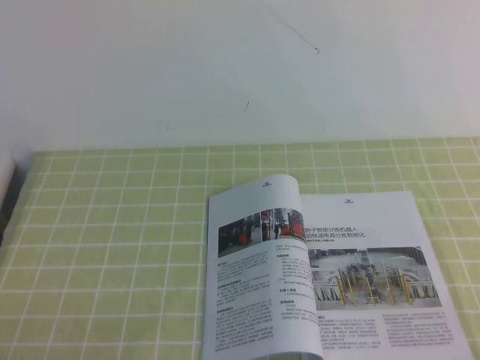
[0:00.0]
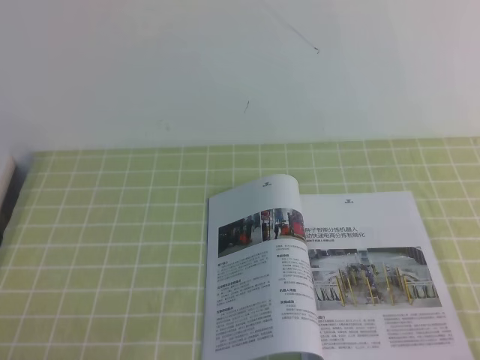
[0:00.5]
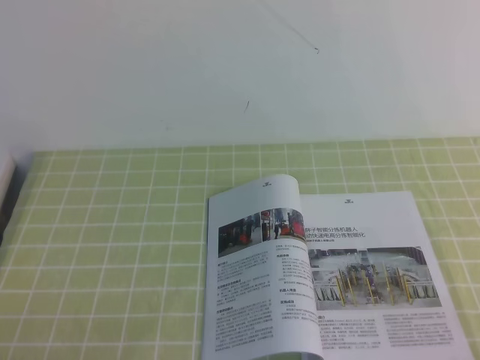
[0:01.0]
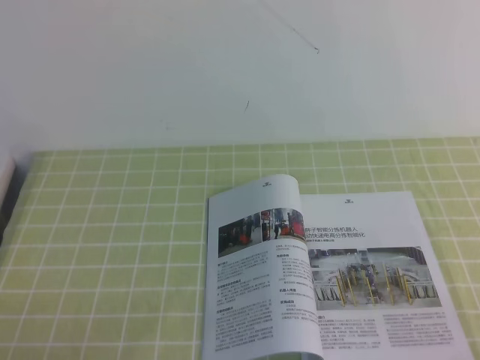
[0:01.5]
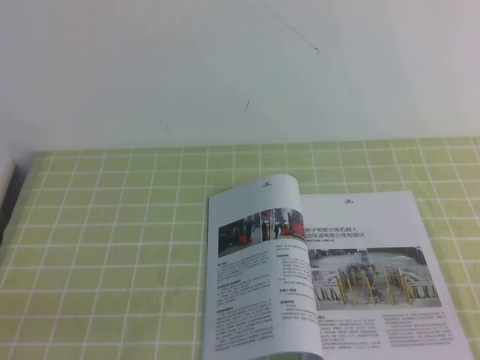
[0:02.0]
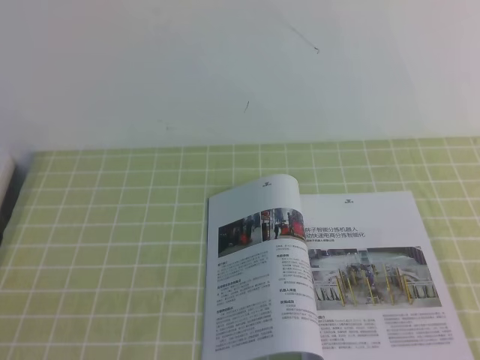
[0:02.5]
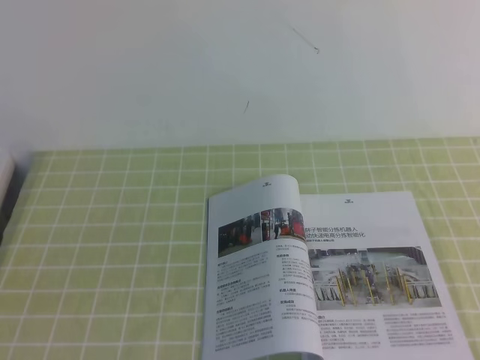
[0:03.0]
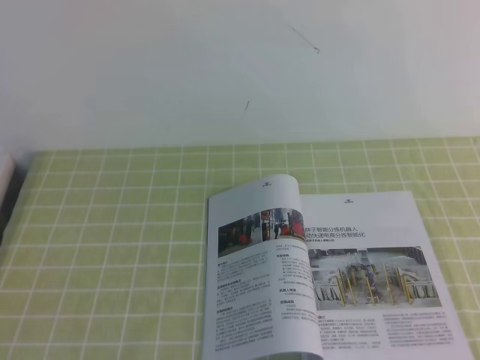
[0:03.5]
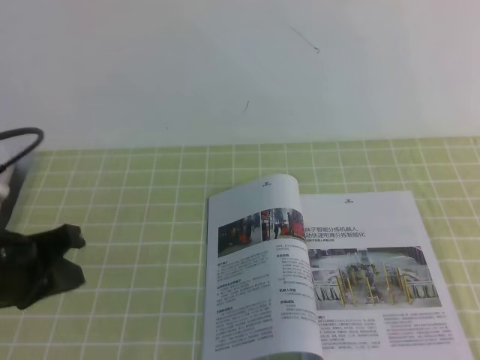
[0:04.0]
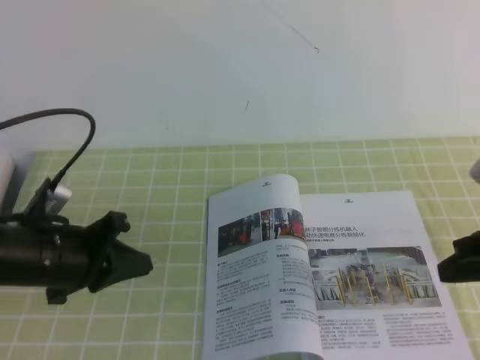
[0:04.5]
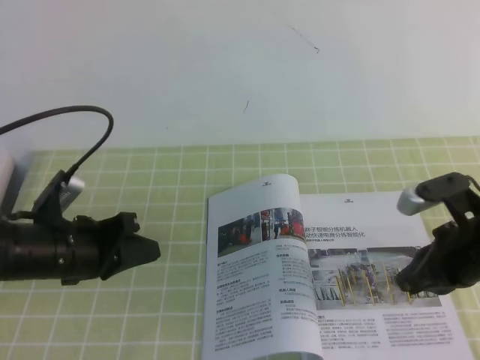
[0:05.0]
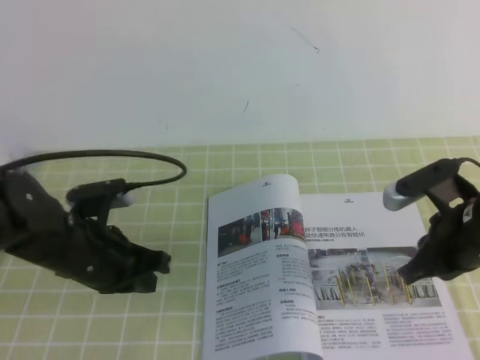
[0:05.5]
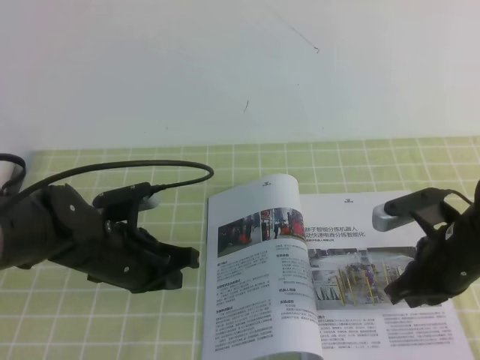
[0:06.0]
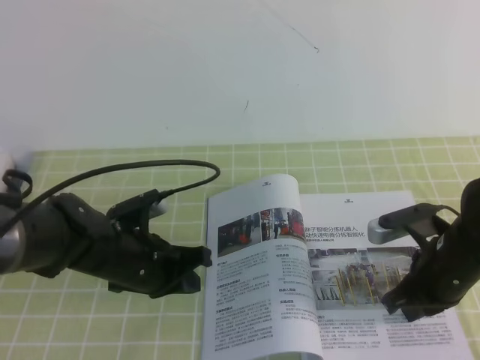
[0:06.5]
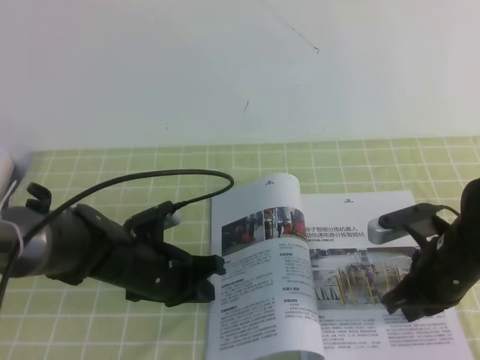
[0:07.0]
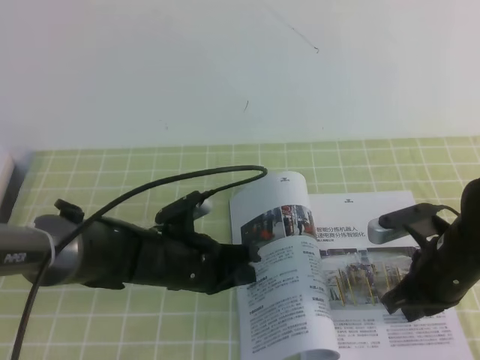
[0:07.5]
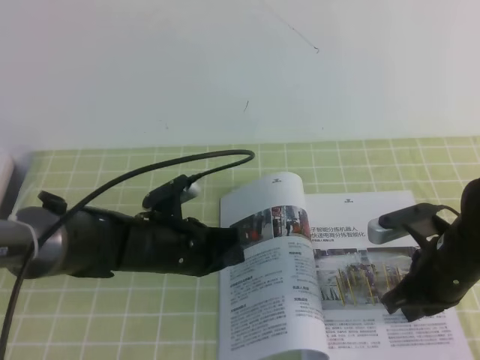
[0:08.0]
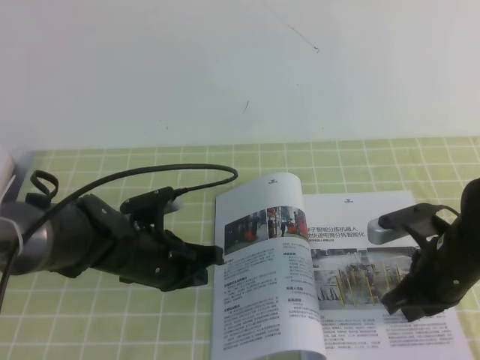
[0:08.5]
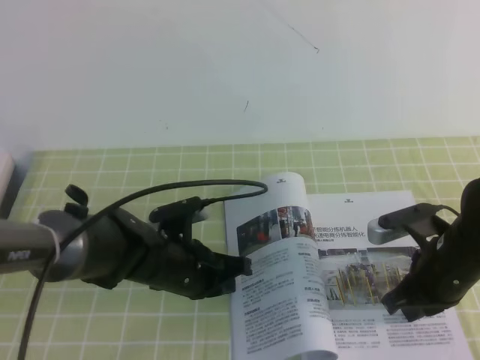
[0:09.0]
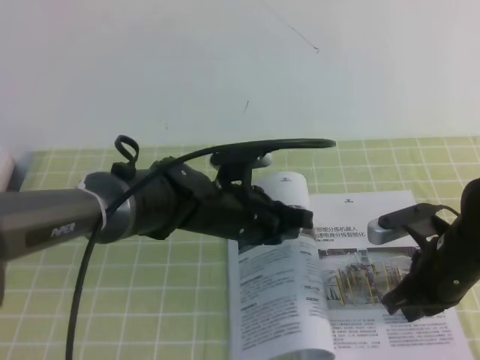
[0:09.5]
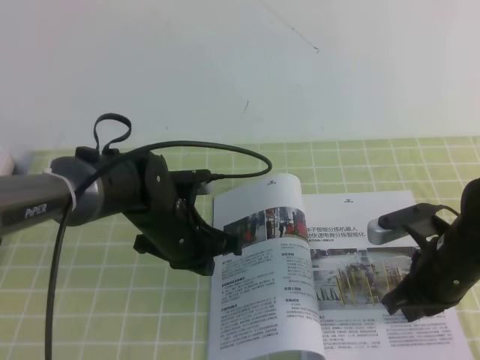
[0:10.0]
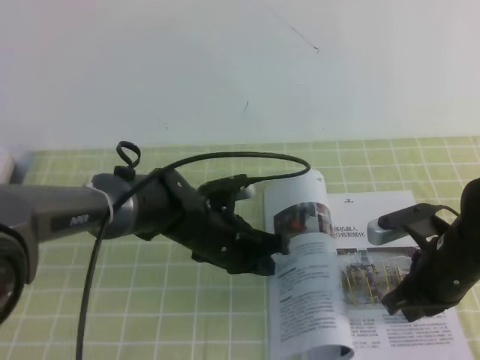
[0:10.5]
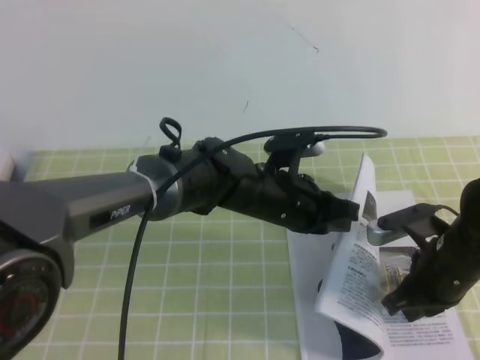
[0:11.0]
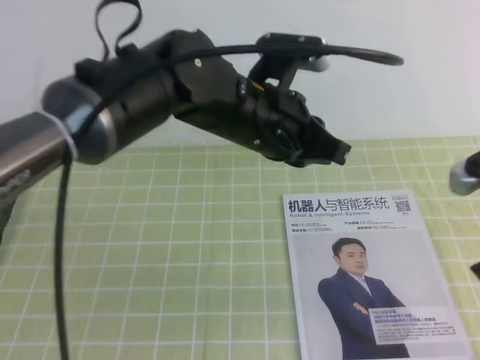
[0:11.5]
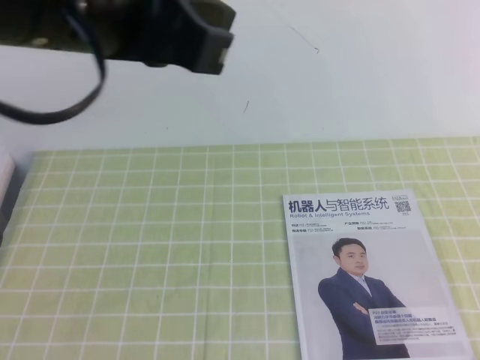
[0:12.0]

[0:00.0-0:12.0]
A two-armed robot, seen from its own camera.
Task of the whole recording: on the green tablecloth, hold the book with one hand and close it with the other.
0:02.0 to 0:04.0: The left gripper moves forward, about 15 cm.
0:04.0 to 0:06.0: The right gripper moves downward, to the left and forward, some 20 cm. The left gripper travels to the right, downward and forward by roughly 15 cm.
0:06.0 to 0:08.0: The left gripper heads to the right, covering approximately 5 cm.
0:08.0 to 0:10.0: The left gripper goes to the right and returns, roughly 5 cm each way.
0:10.0 to 0:12.0: Both grippers move upward and backward, roughly 35 cm.

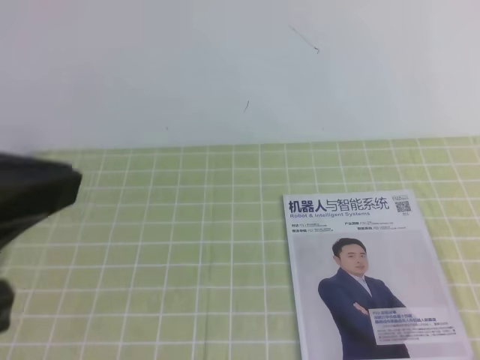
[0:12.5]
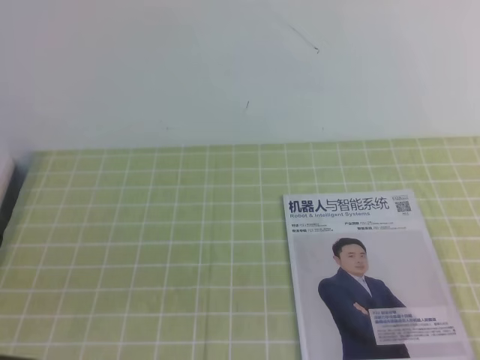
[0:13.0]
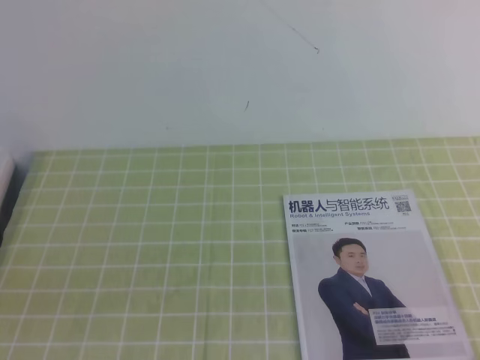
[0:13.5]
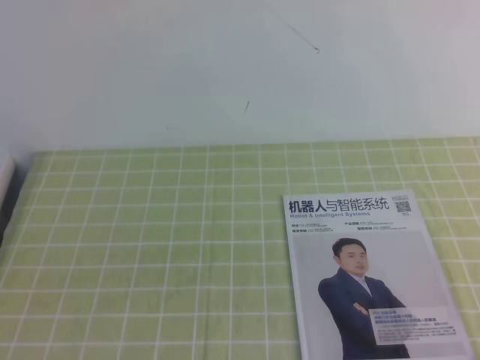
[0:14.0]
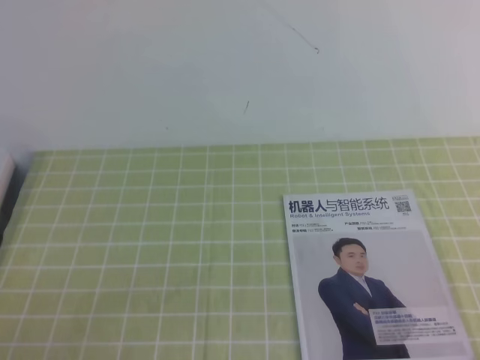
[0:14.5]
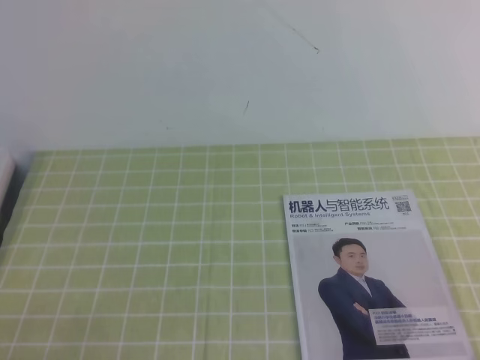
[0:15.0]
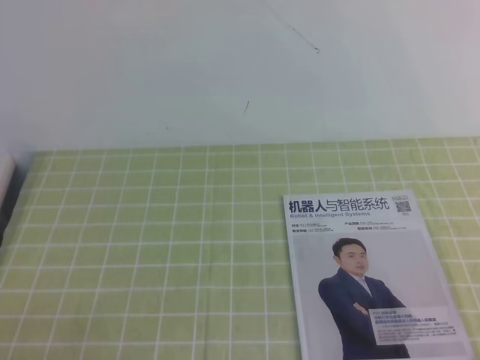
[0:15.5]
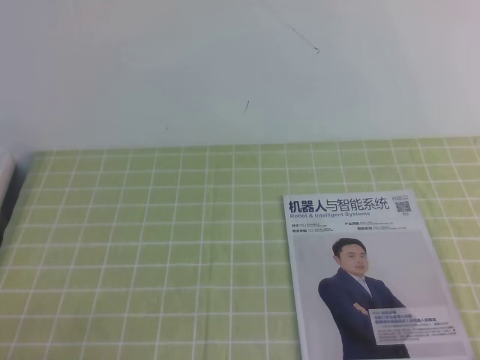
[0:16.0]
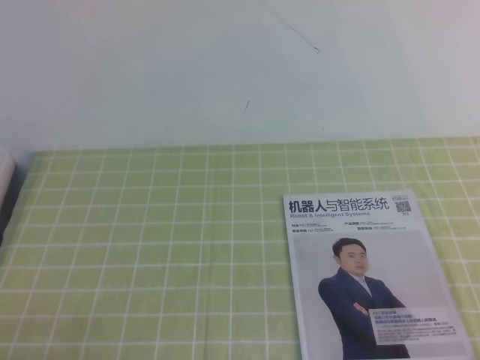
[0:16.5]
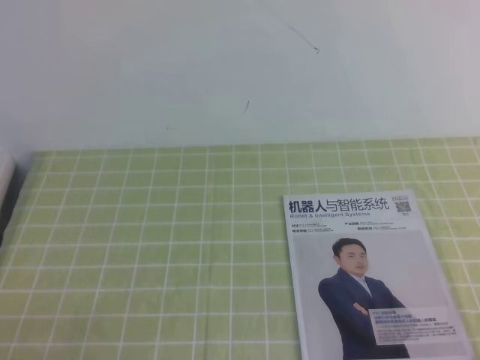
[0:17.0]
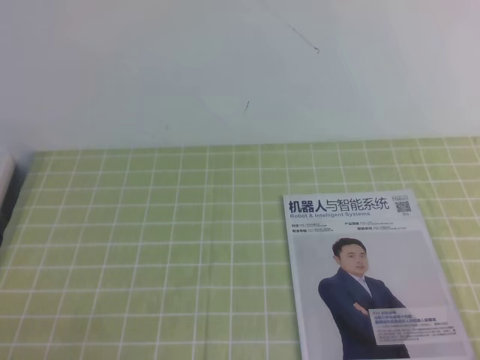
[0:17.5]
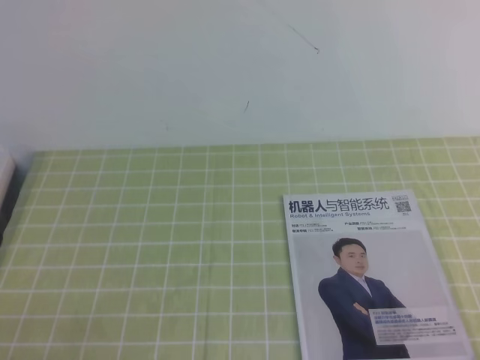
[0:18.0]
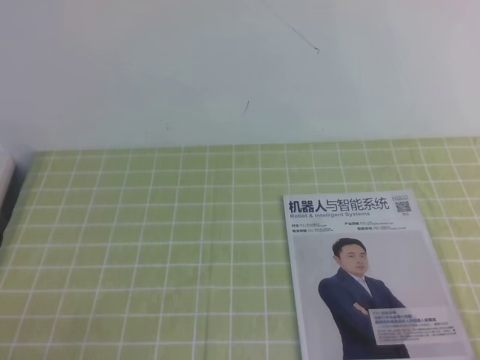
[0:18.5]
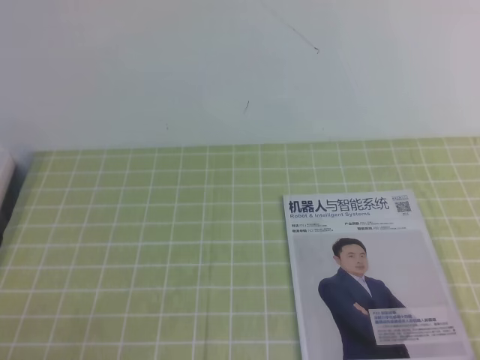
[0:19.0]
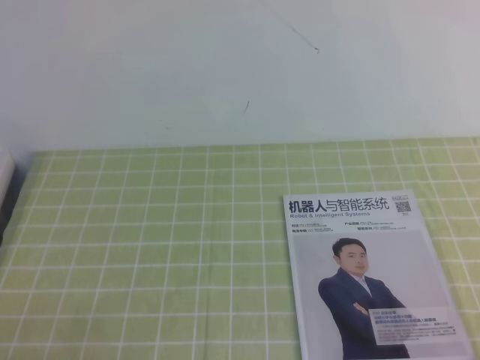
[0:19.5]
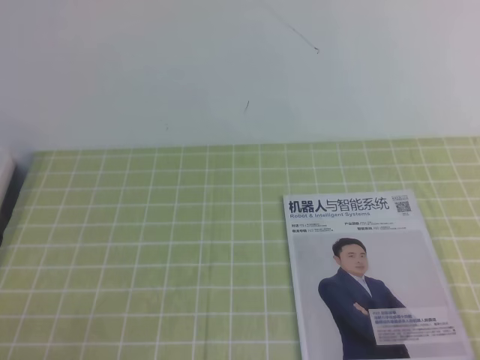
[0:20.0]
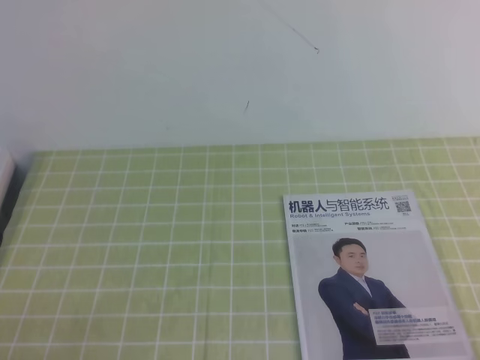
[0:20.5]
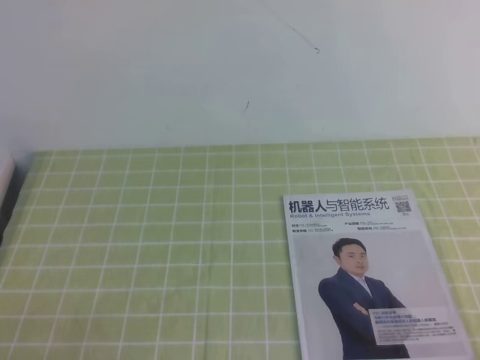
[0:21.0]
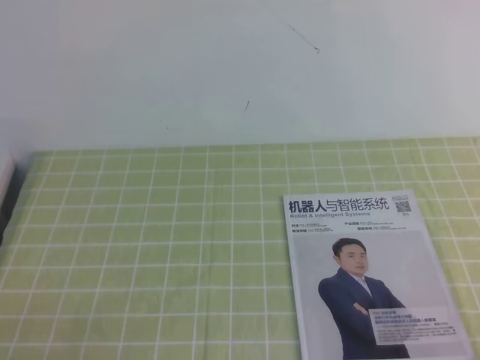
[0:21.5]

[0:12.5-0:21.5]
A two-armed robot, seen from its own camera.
Task of the whole recording: on the green tablecloth, hold the book with one hand and close it with the other.
Step, 0:12.5 to 0:21.5: Close the open book.
0:12.5 to 0:14.5: The left gripper is displaced downward by about 20 cm, while the right gripper shifts roughly 10 cm downward.
0:17.0 to 0:21.5: Neither gripper changes place.
